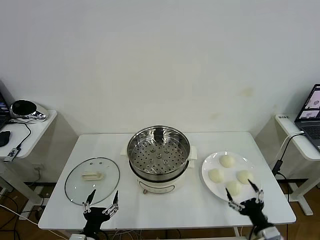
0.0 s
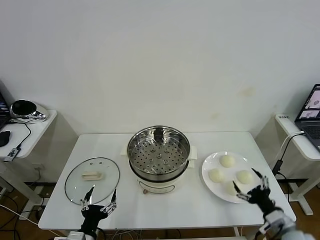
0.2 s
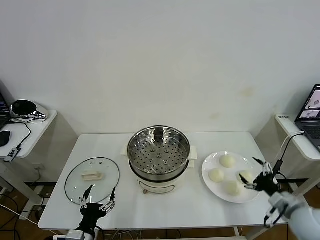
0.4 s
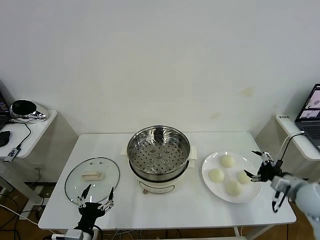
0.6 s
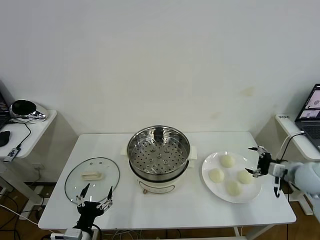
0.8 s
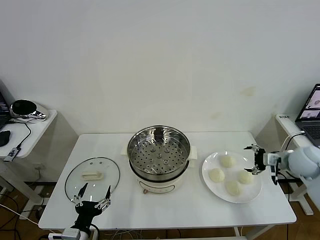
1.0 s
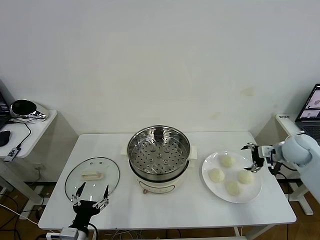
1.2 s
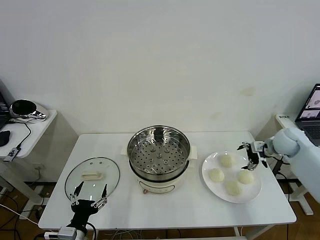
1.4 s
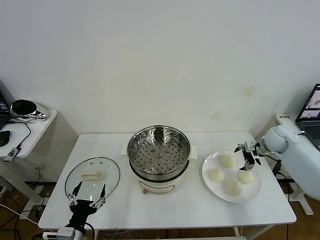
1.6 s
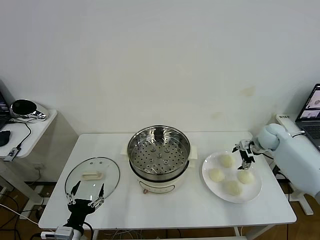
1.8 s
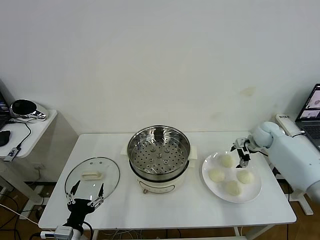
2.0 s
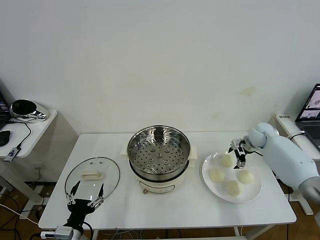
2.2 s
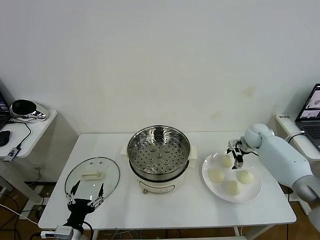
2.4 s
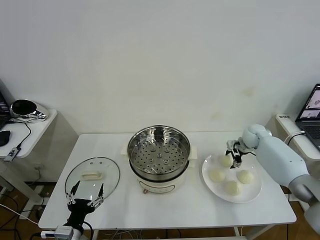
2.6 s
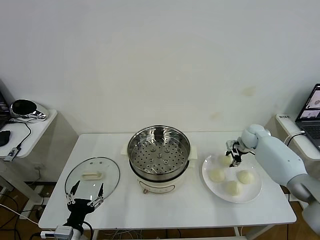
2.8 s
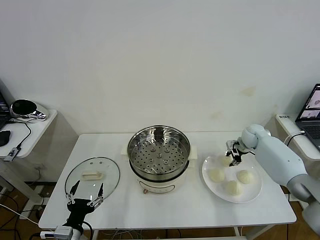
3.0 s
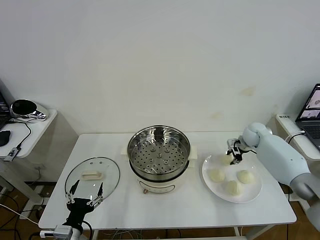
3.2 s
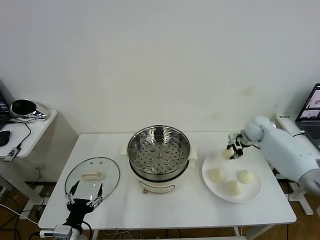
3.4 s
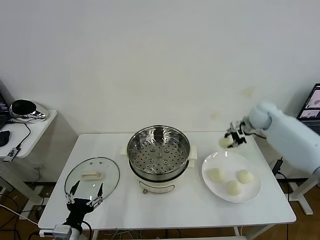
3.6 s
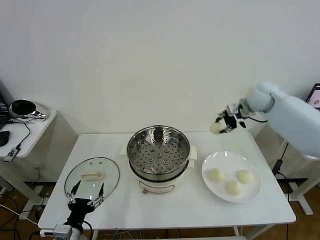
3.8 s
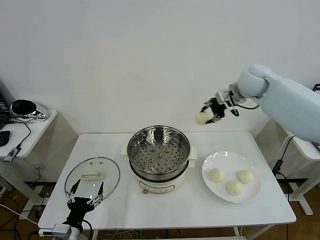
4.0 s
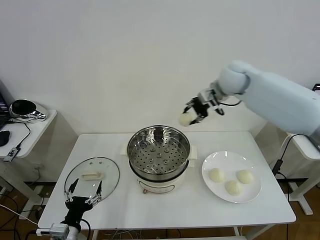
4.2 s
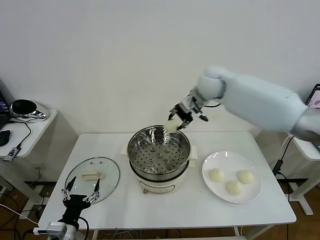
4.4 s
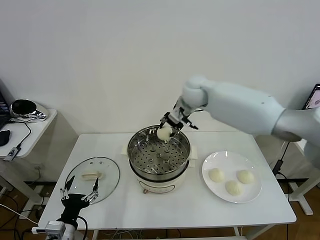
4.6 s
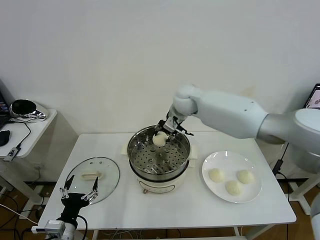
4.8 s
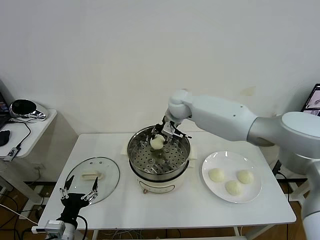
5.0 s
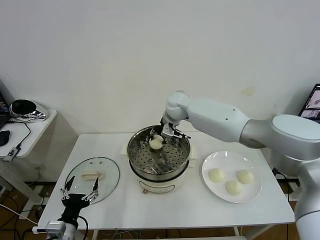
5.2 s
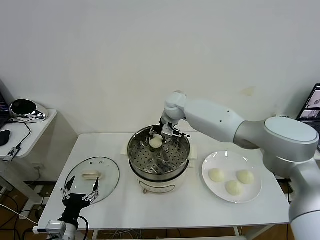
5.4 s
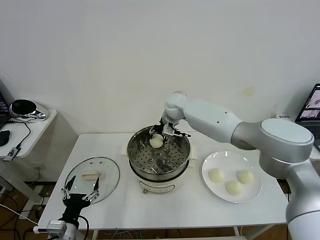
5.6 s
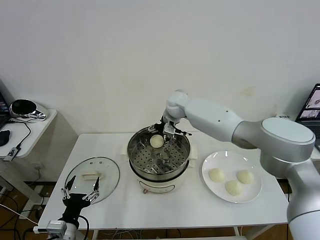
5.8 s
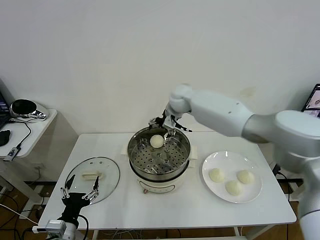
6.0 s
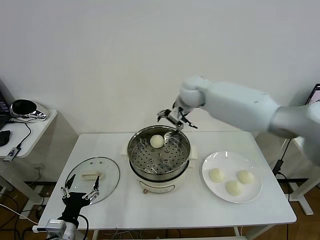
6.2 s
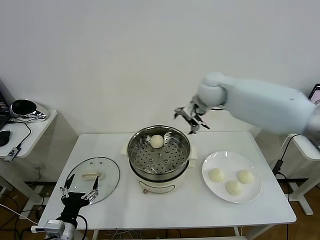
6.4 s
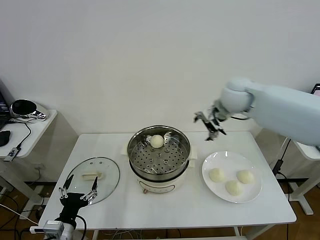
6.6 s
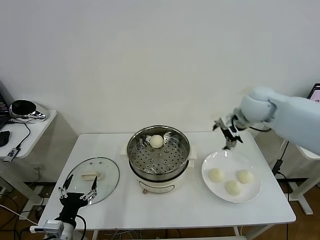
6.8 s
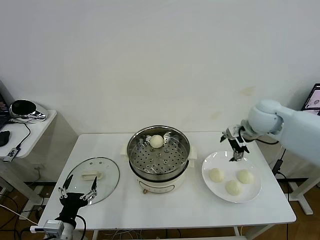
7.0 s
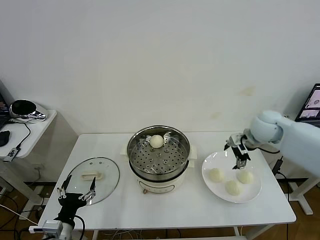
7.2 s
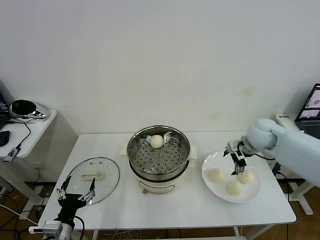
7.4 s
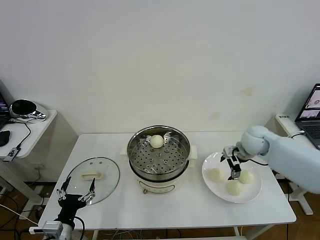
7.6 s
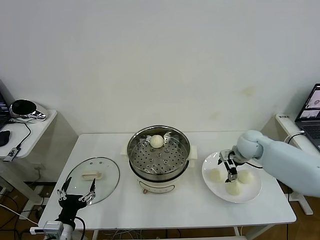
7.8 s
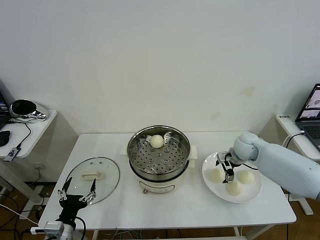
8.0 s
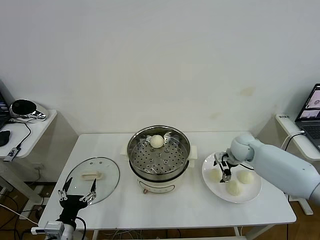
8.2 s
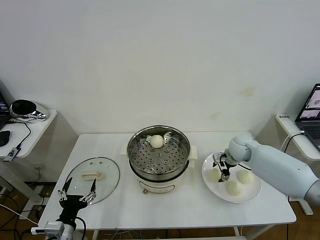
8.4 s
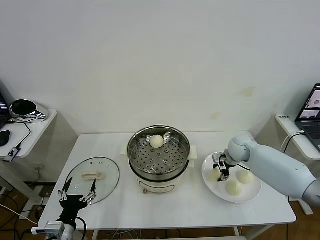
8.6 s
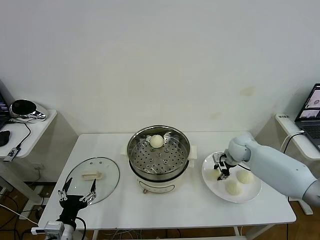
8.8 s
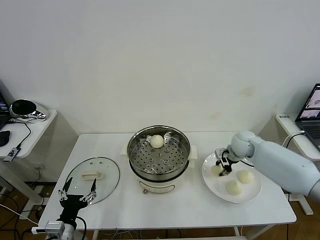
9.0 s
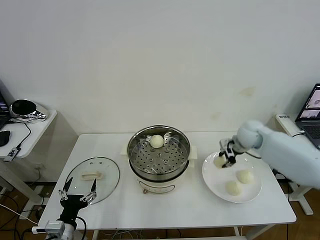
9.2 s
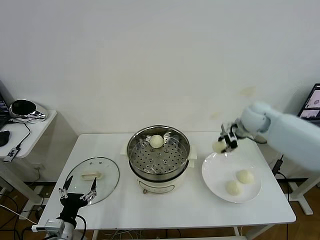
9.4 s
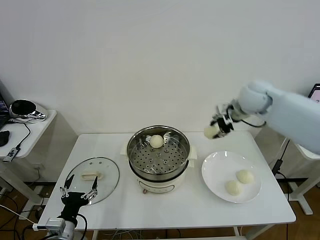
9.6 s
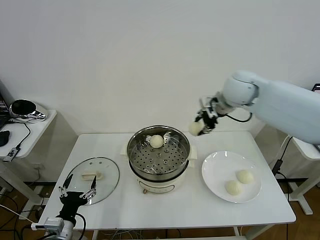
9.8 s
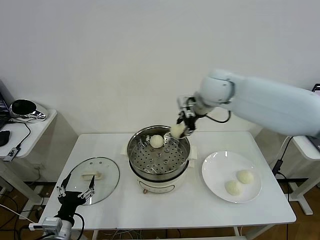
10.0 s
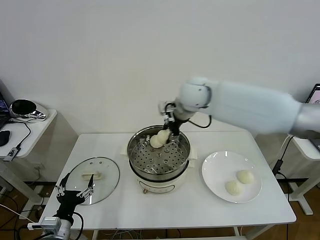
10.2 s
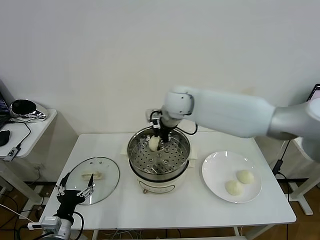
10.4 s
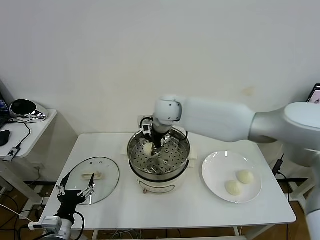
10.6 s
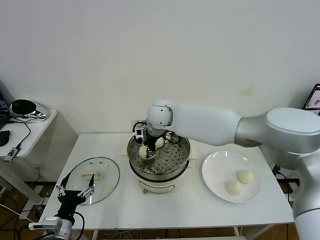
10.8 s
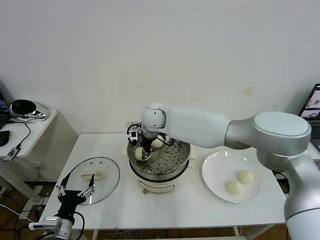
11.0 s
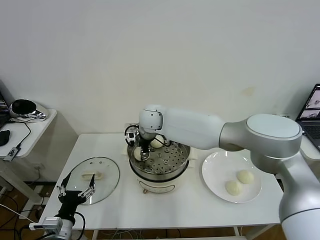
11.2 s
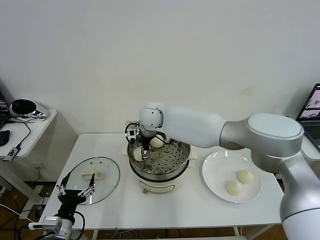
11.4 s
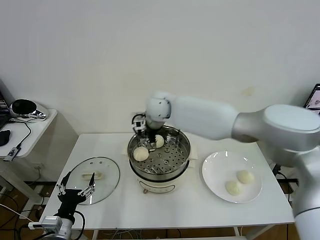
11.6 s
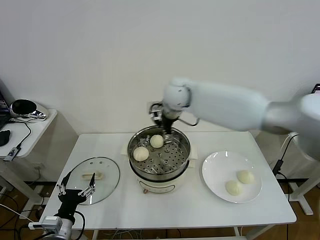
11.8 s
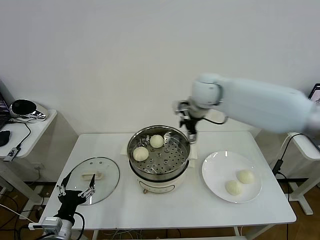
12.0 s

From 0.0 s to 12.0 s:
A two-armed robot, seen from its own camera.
Task of the whole recording: take steamed baozi put them in steamer then cover it.
Step, from 0.0 s to 3.0 s: Grasp the baozi in the plate with right gripper.
Step, from 3.2 s to 5.6 s: Place the baozi on the steamer with right gripper.
Step, from 6.0 s to 8.6 s: Grasp the baozi in the plate with right gripper.
Step, from 8.8 s to 11.4 s: Place the baozi on the steamer with right gripper.
From 1.6 s to 3.0 s: The right gripper shifts by some 5 cm, and closes.
From 3.0 s to 4.4 s: The right gripper shifts about 35 cm to the left and upward.
From 4.4 s to 6.0 s: The right gripper goes downward and returns, some 10 cm each way, and opens up.
From 6.0 s to 7.6 s: The right gripper heads to the right, downward and backward, covering approximately 30 cm.
From 7.6 s to 9.0 s: The right gripper closes.
From 9.0 s to 10.4 s: The right gripper goes roughly 30 cm to the left and upward.
From 10.4 s to 12.0 s: The right gripper moves to the right, roughly 15 cm, and opens.

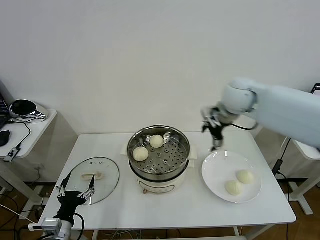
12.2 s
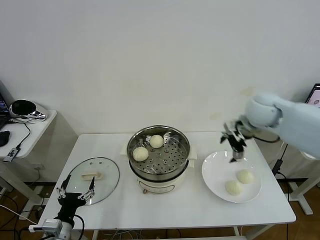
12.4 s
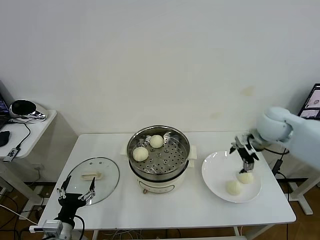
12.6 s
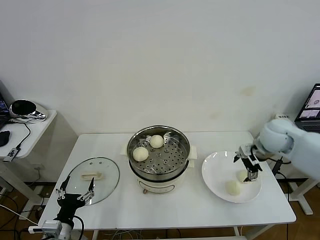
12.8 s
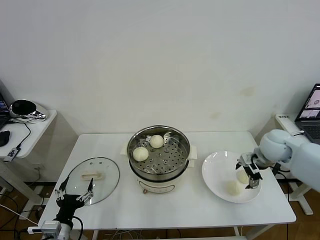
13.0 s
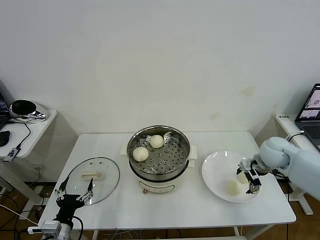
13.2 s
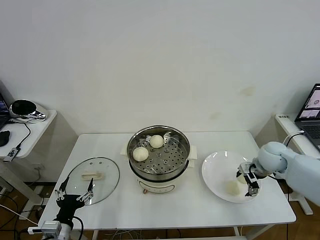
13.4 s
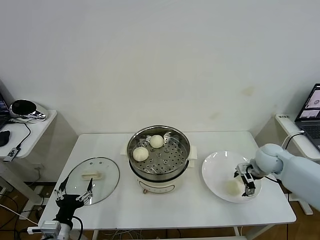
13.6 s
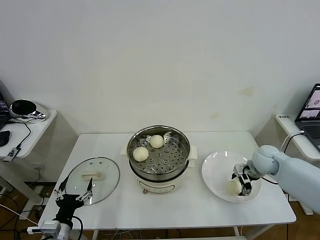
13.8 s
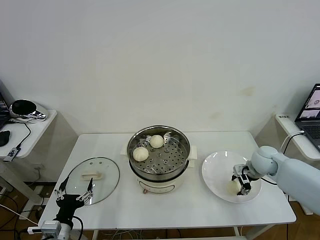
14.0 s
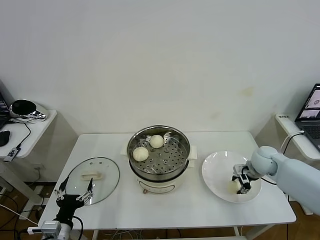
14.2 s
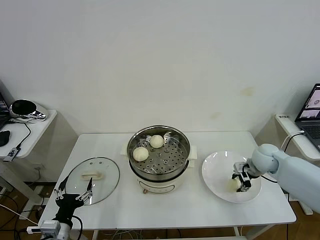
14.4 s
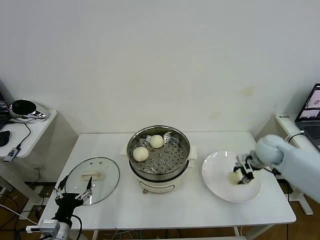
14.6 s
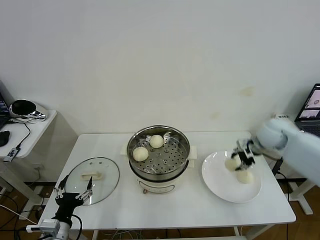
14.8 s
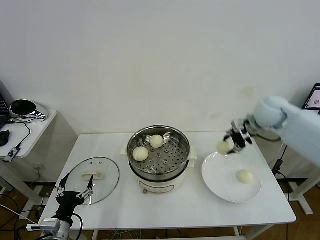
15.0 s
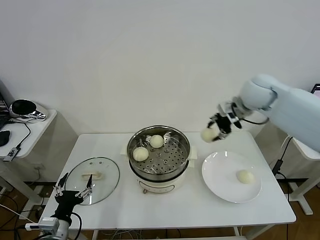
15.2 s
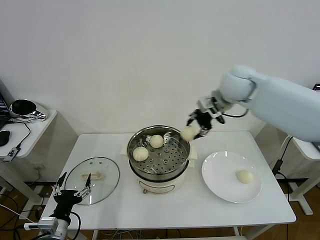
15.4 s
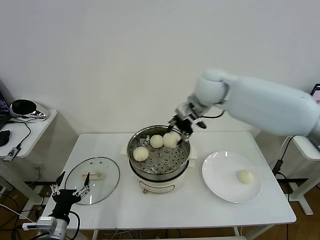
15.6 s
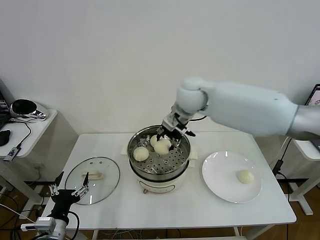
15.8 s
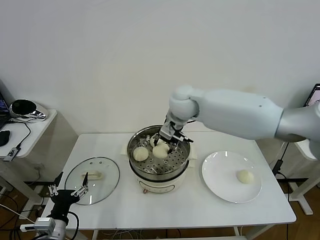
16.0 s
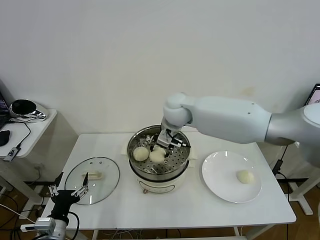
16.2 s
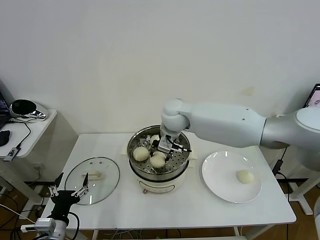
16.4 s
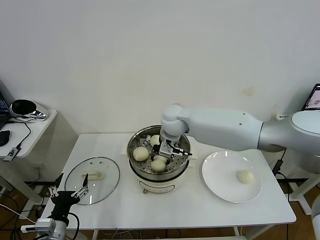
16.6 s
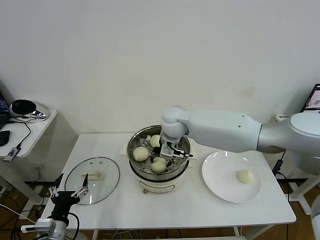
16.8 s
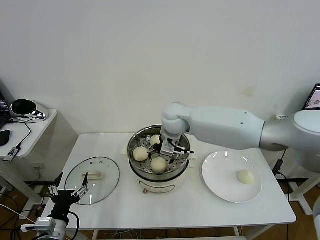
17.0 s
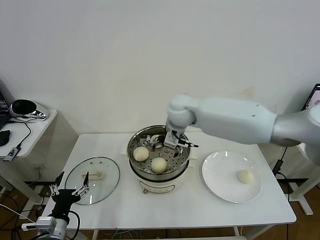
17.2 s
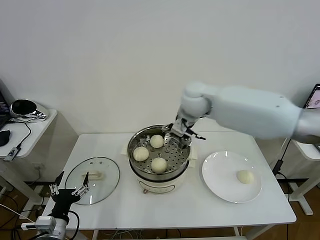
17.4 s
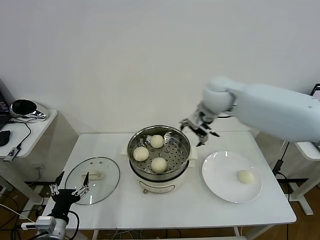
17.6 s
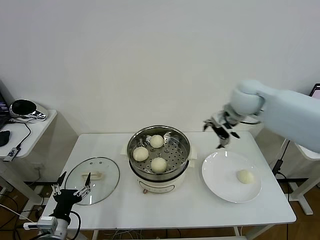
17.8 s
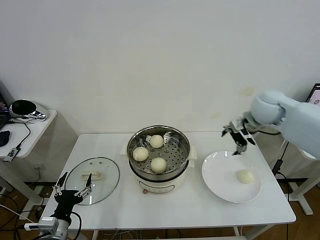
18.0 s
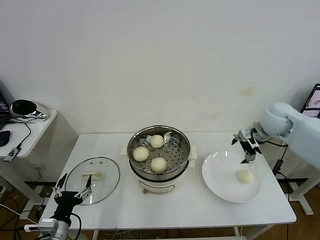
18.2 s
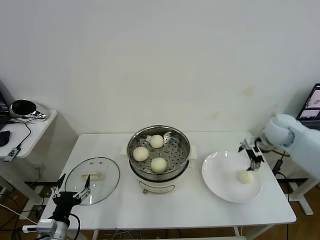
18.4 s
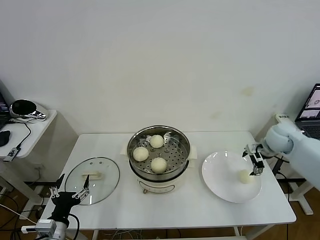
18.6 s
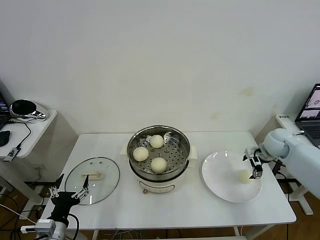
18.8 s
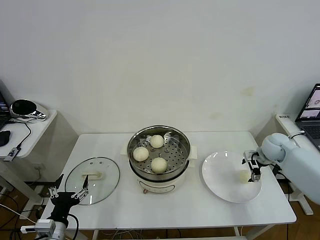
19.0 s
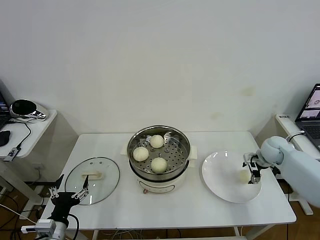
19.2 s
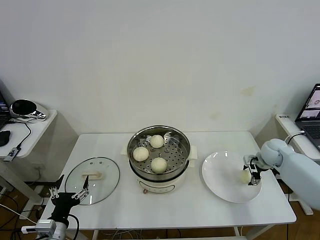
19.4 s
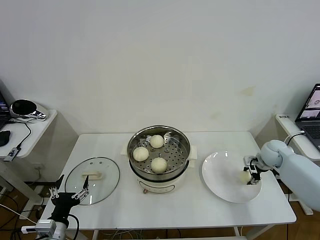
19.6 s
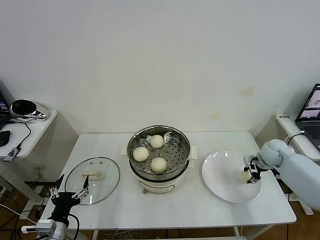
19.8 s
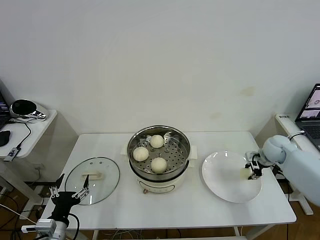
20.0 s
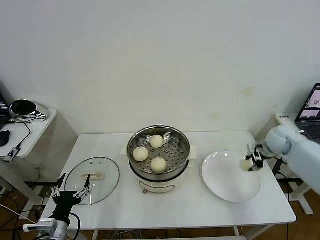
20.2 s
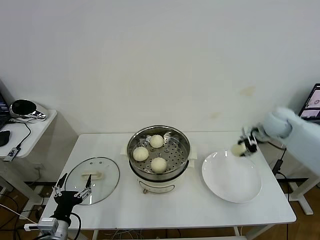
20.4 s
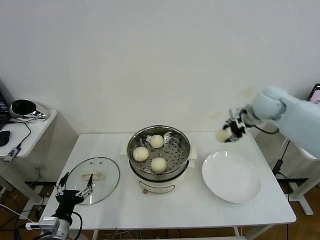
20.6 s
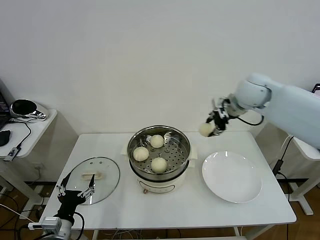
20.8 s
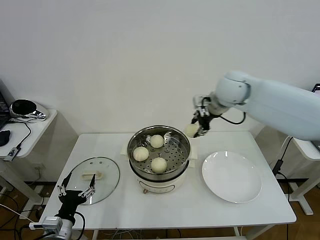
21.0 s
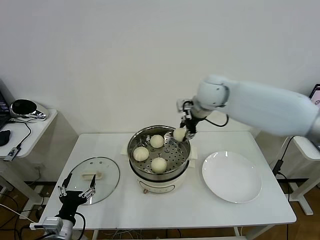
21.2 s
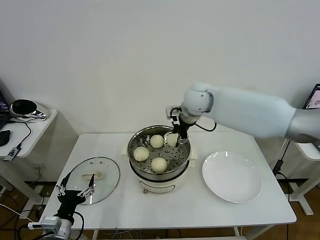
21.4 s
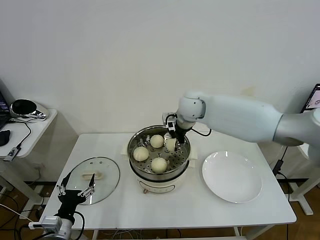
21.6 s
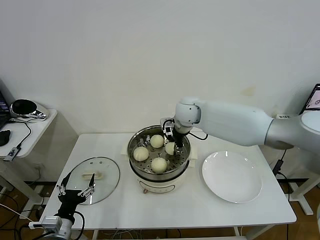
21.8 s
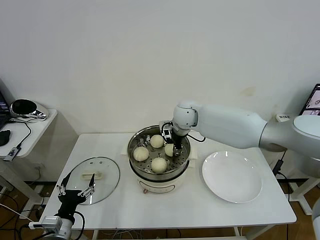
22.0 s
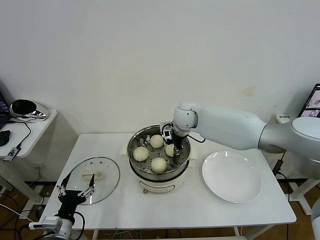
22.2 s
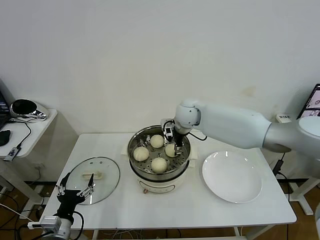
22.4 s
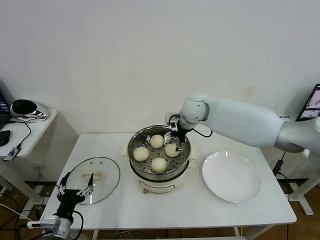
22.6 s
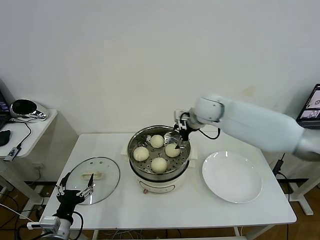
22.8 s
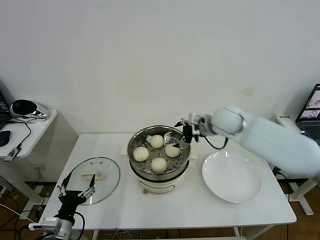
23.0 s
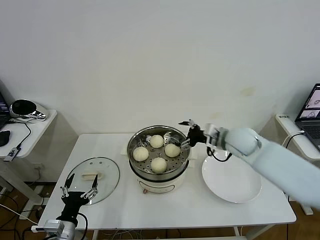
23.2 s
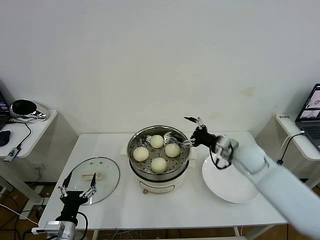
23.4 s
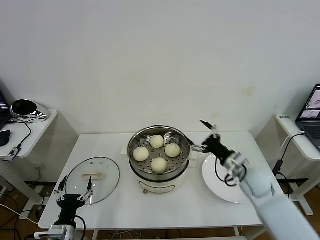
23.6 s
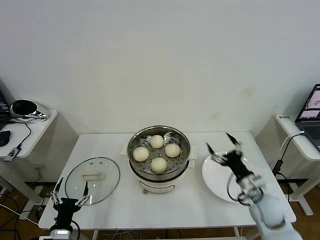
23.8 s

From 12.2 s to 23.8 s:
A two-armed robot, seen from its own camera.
Task of the whole recording: take steamed baozi put them in steamer then cover it.
Step, from 12.2 s to 14.2 s: Grasp the baozi in the plate with right gripper.
Step, from 14.4 s to 17.0 s: Place the baozi on the steamer with right gripper.
Step, from 17.2 s to 19.8 s: Grasp the baozi in the plate with right gripper.
Step, from 20.0 s to 22.4 s: Place the baozi on the steamer with right gripper.
From 12.2 s to 13.6 s: The right gripper travels downward and to the right by some 25 cm.
From 13.6 s to 15.0 s: The right gripper travels upward by roughly 20 cm, and closes.
From 15.0 s to 16.6 s: The right gripper goes approximately 25 cm to the left.
From 16.6 s to 18.0 s: The right gripper heads to the right, covering approximately 30 cm, and opens up.
From 18.0 s to 19.4 s: The right gripper heads downward and to the right, covering some 20 cm.
From 19.4 s to 21.0 s: The right gripper is displaced upward and to the left by approximately 35 cm, and closes.
From 21.0 s to 22.4 s: The right gripper is displaced downward and to the left by approximately 15 cm, and opens up.
From 22.4 s to 23.8 s: The right gripper heads backward, to the right and downward, covering some 40 cm; the left gripper is displaced downward by approximately 5 cm.
